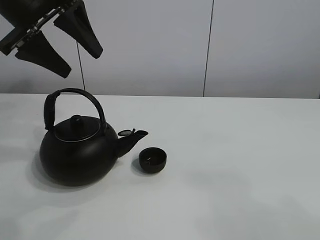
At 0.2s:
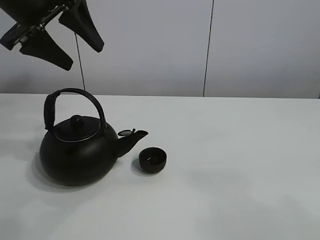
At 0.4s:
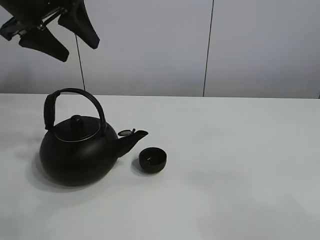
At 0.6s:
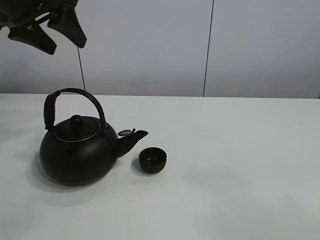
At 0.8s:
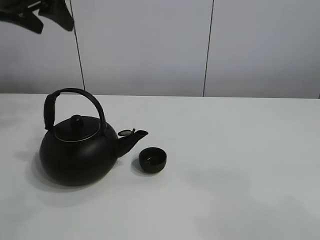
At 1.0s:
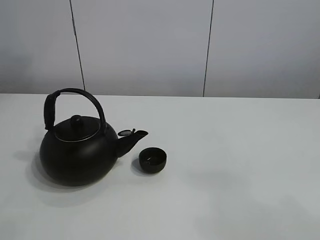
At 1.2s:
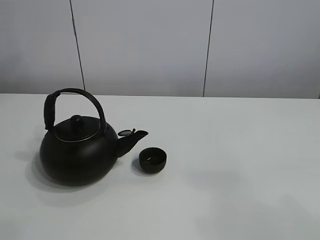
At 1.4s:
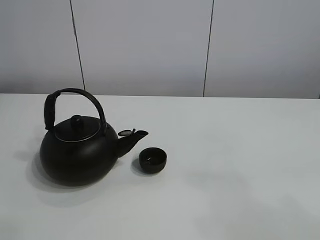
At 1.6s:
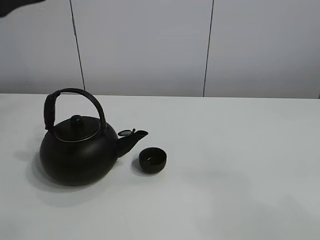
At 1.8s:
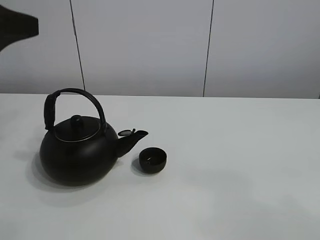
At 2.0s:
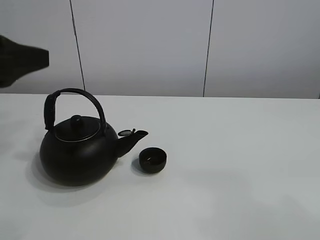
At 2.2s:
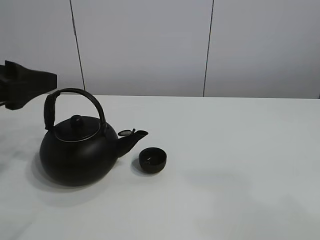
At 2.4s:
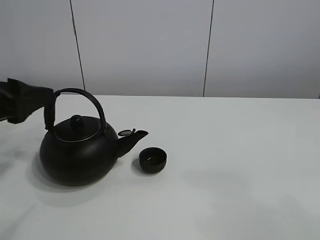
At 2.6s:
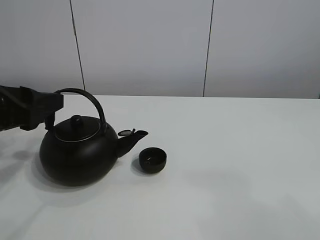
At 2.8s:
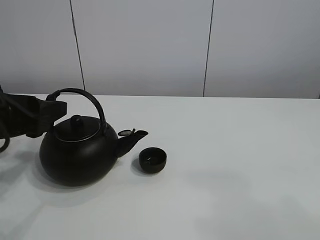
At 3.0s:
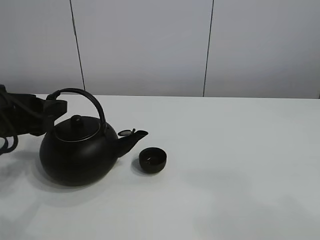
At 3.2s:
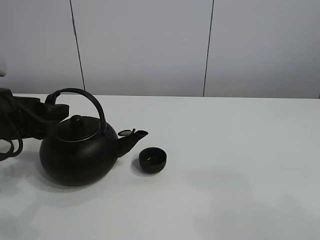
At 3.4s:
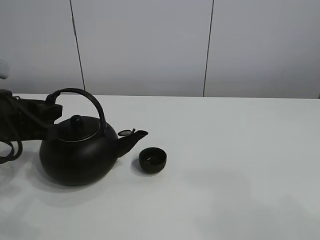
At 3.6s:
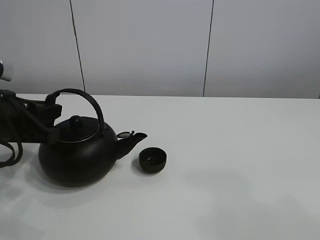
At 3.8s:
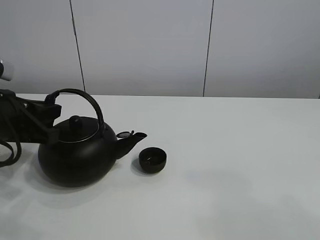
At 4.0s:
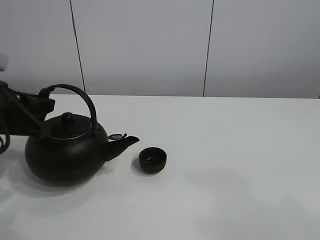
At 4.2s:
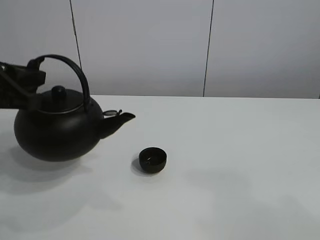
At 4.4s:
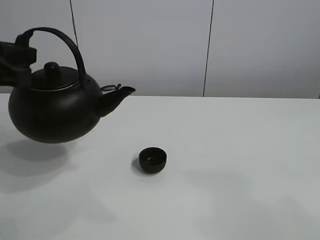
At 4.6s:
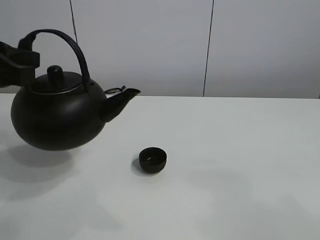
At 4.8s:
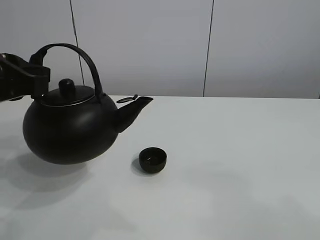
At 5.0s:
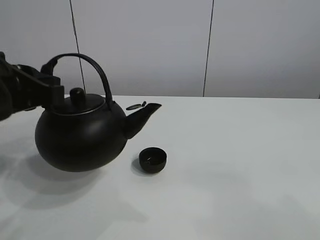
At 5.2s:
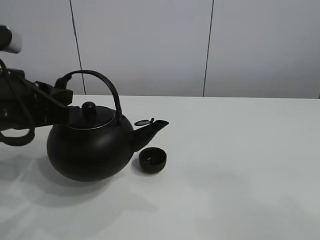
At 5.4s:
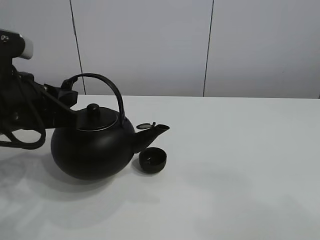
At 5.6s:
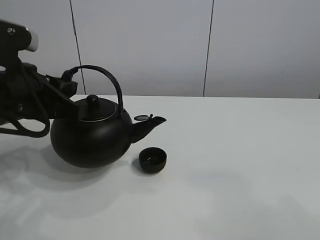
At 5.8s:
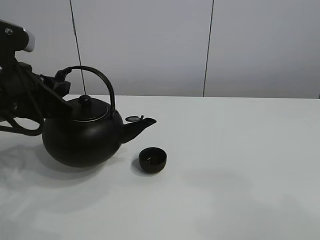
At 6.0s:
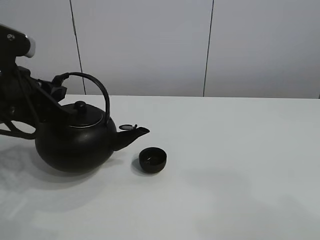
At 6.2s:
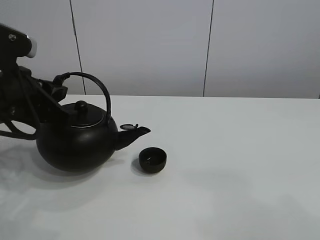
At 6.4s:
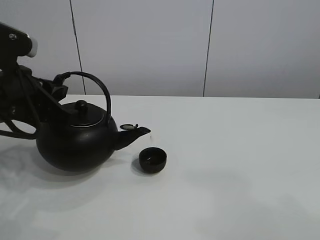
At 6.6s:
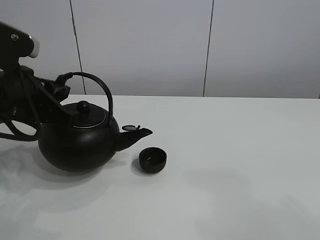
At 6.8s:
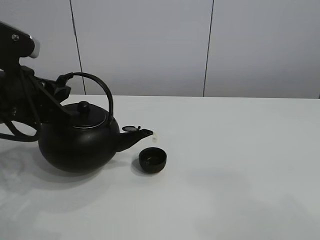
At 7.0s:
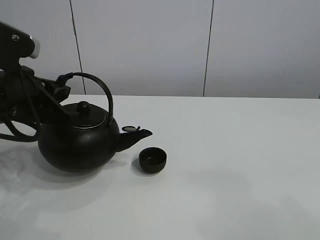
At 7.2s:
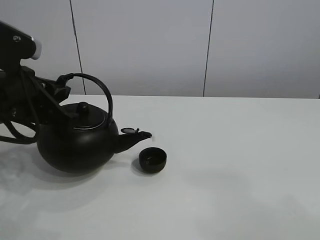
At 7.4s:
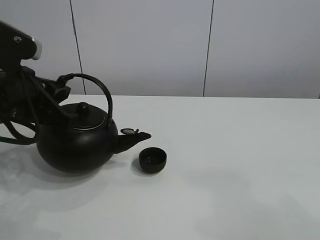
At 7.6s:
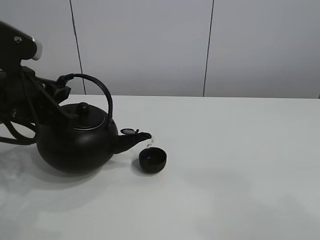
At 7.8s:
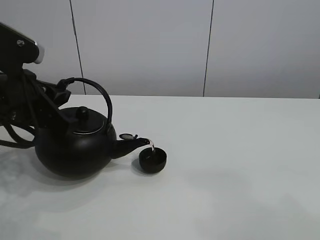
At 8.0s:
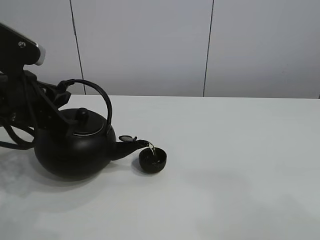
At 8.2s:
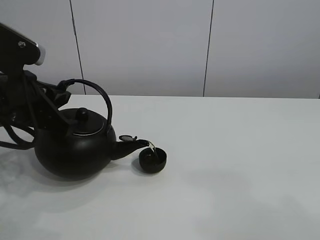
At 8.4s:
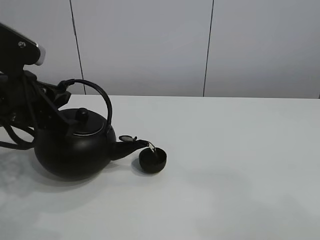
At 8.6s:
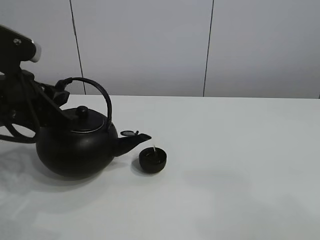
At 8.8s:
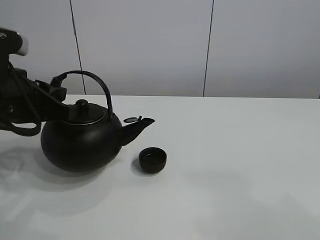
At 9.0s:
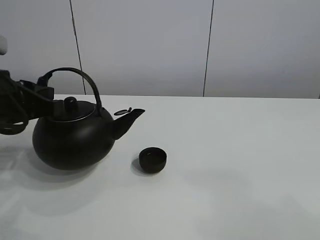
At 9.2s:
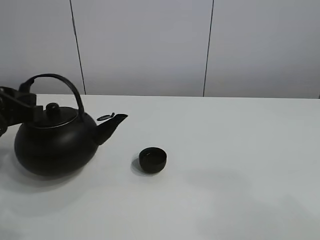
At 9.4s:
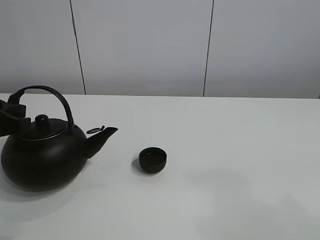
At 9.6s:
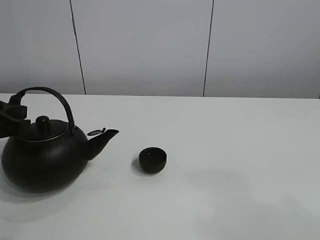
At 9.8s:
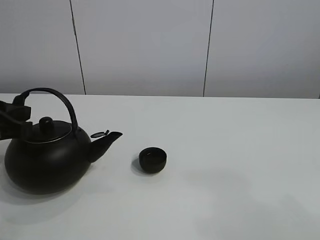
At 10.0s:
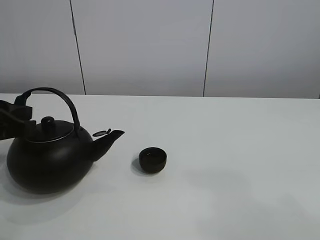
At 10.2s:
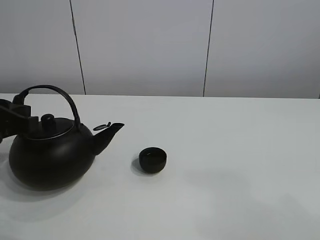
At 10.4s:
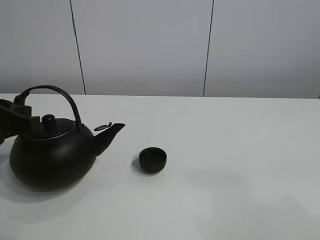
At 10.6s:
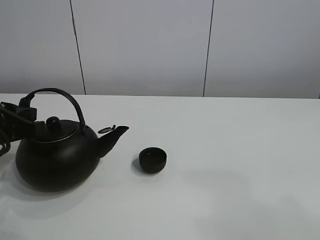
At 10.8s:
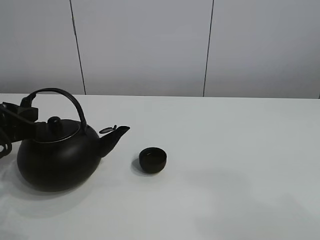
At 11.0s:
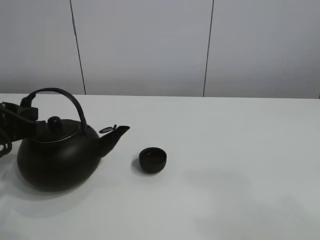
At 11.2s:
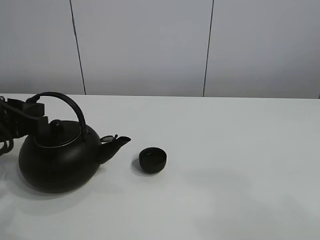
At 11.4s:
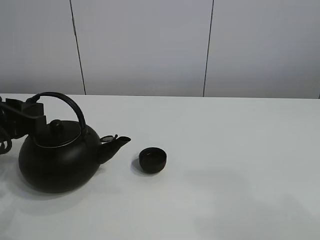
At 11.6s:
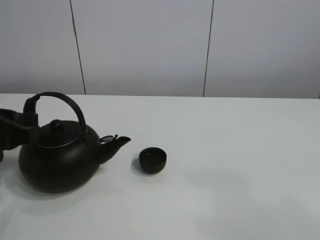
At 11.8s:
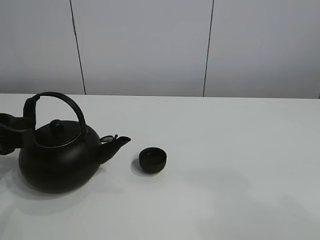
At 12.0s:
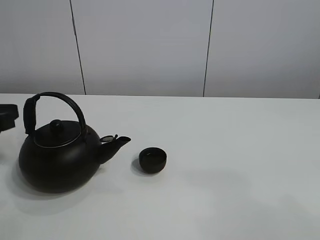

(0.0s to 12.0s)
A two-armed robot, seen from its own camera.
Task of the whole recording: pour tea into the teacup.
Step, 0.0s - 3.6s: Pick up the teapot with the left gripper.
Step, 3.8s - 8.6s: Pour tea into the teacup with the left gripper.
0.0s - 1.6s: The left gripper heads backward, covering some 10 cm.
1.6s - 3.0s: The left gripper goes approximately 15 cm downward.
3.0s - 4.4s: The left gripper heads upward, covering about 10 cm, and closes its fingers.
4.4s - 6.0s: The left gripper travels downward by about 5 cm.
6.0s - 9.0s: The grippers move only a little.
9.0s - 10.4s: The grippers stay close to where they were, moving slightly.
10.4s - 12.0s: The left gripper opens its fingers.

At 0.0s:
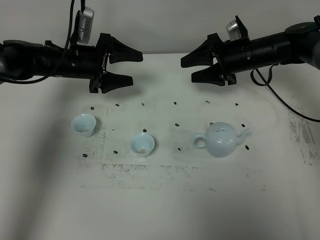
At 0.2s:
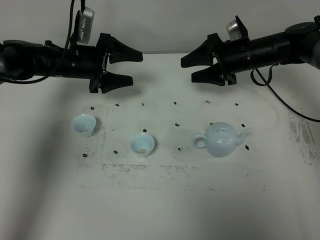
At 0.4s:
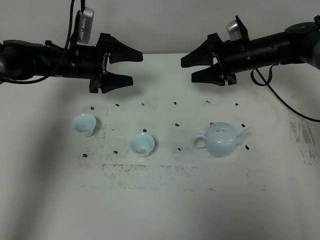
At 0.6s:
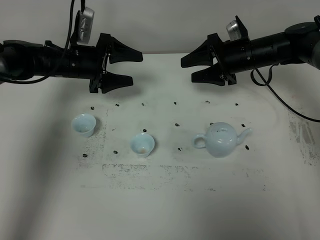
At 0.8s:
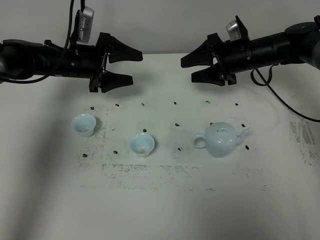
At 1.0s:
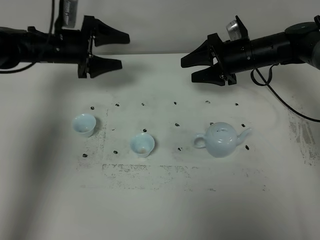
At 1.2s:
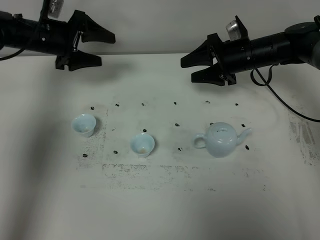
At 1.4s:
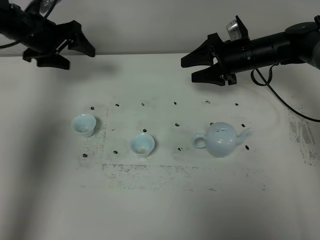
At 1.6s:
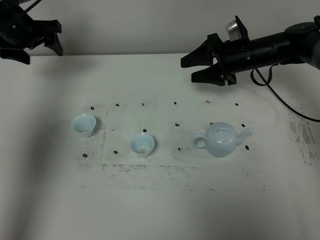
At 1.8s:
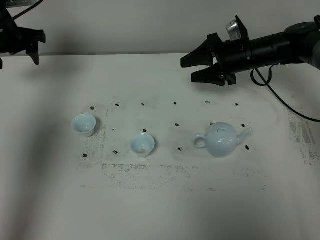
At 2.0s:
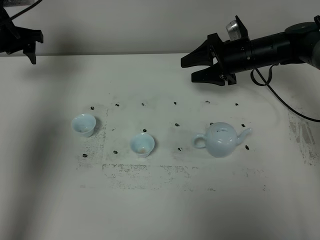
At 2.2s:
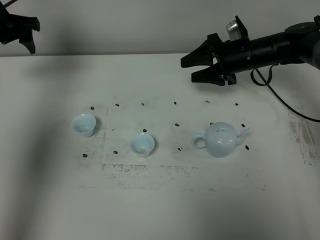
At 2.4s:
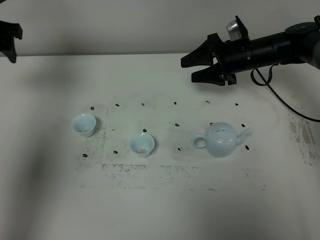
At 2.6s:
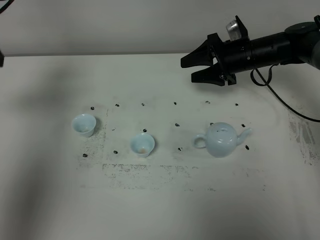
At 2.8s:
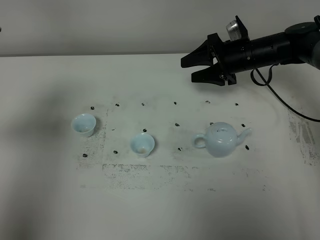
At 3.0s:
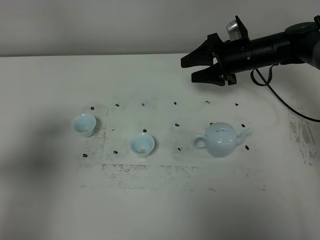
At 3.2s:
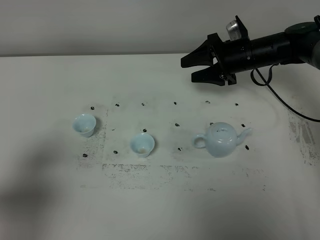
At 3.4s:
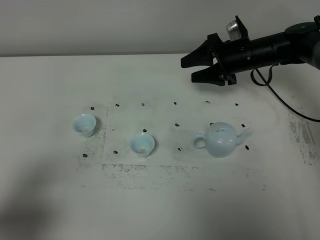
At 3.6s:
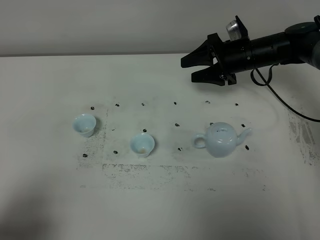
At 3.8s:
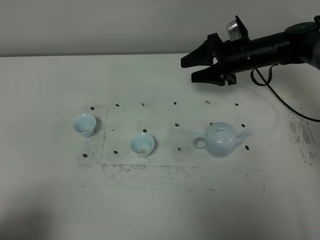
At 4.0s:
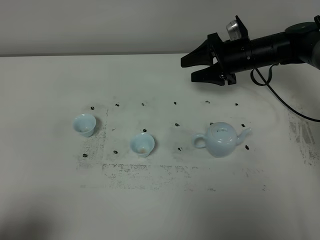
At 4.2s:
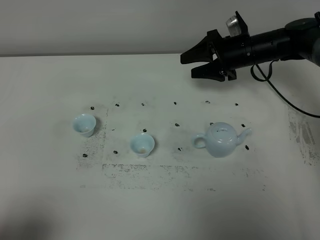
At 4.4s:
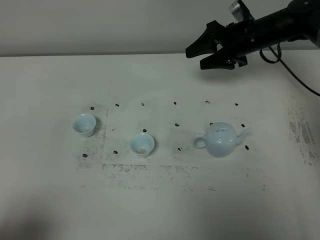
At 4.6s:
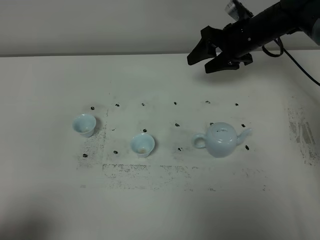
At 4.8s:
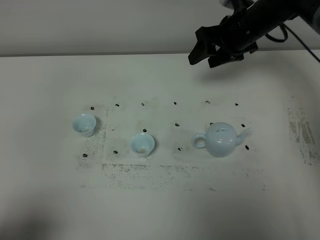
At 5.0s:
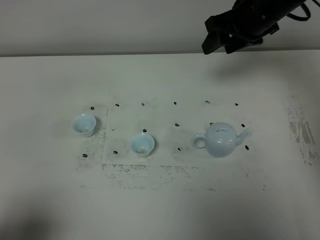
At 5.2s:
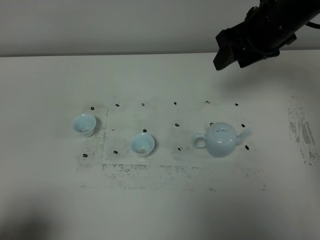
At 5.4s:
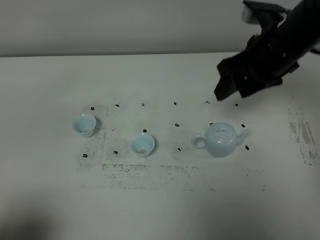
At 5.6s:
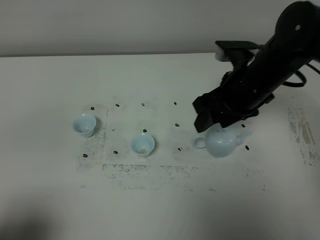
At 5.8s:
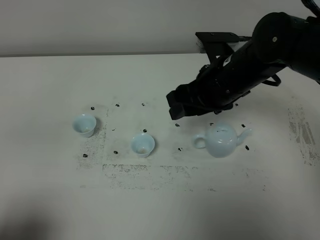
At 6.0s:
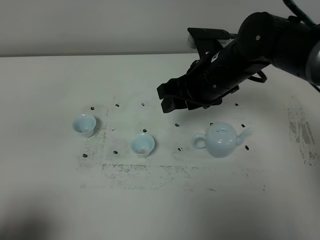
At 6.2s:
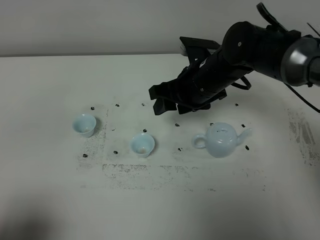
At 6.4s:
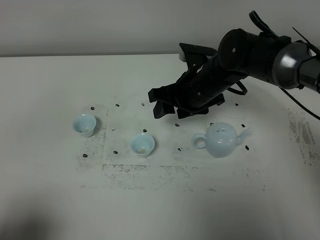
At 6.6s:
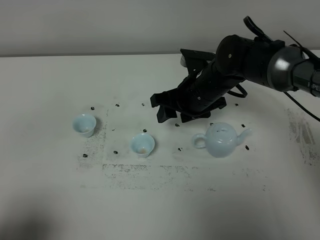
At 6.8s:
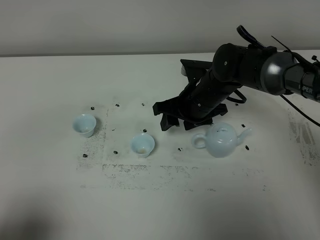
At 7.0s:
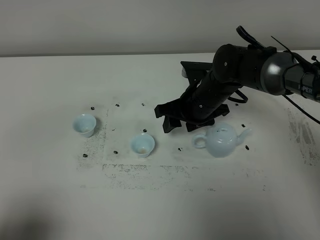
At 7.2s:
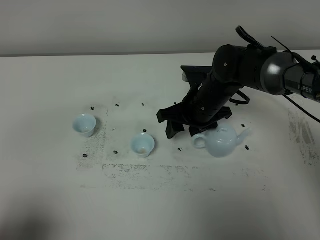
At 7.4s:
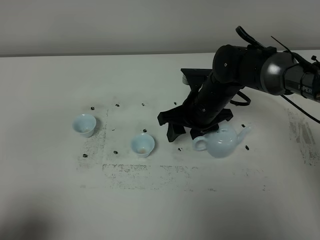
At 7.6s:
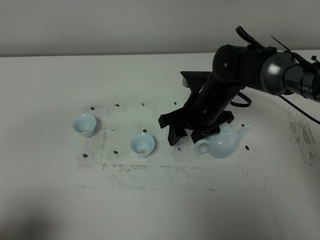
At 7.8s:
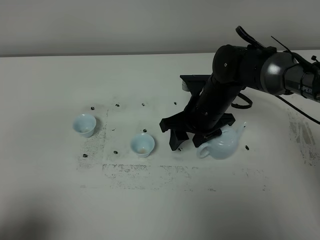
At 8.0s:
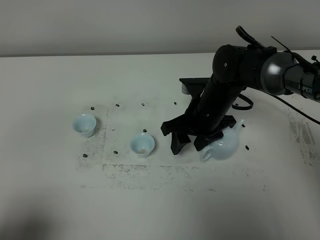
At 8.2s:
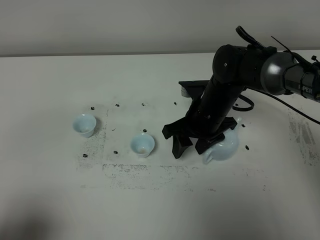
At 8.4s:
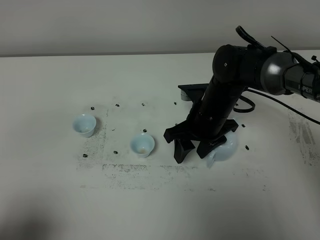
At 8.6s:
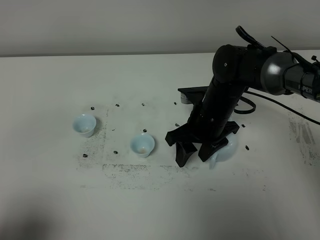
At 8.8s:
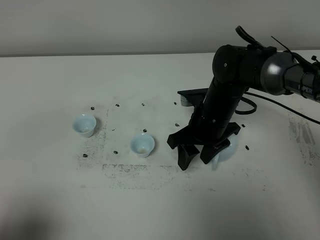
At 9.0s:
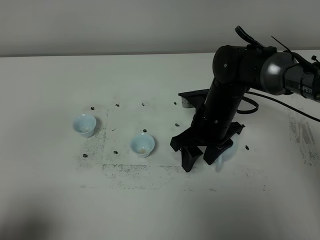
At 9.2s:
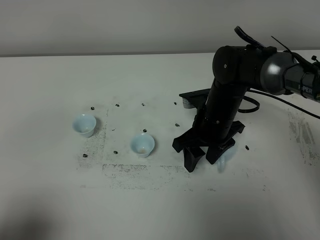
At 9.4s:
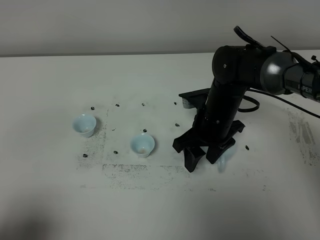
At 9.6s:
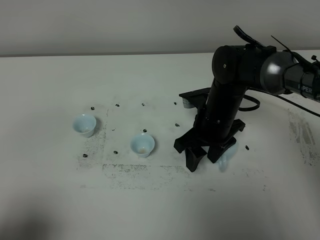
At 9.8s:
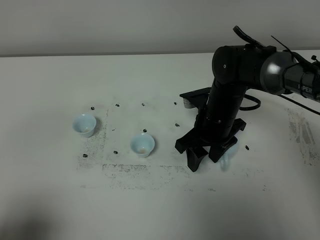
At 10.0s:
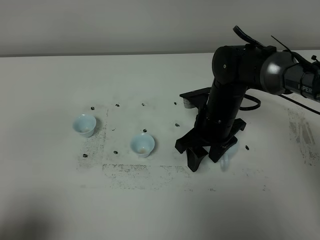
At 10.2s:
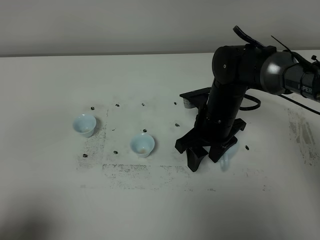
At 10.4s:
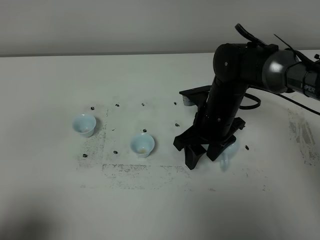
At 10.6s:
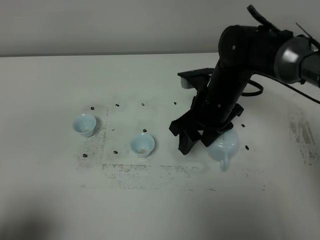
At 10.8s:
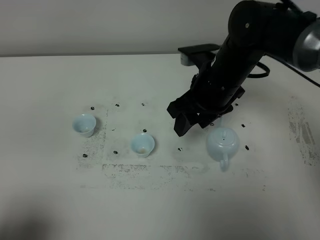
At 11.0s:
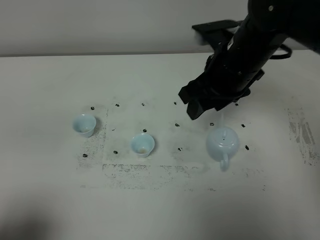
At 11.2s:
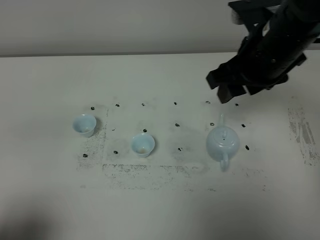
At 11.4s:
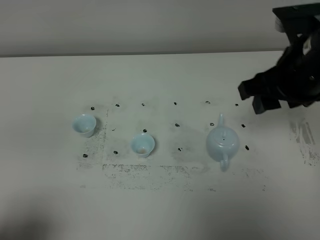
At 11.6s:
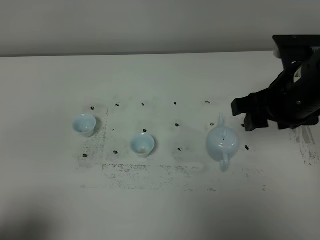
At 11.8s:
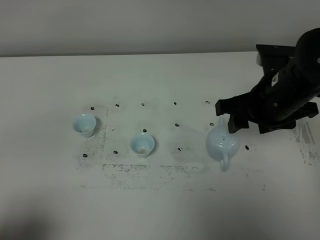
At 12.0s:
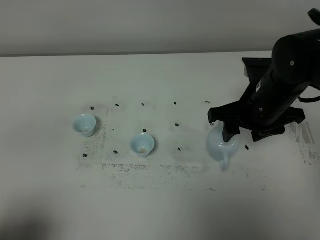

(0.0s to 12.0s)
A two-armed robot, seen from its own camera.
Task of the whole recording: grasp the blue porcelain teapot and pour the tea into the two blue porcelain teacups one by one, put the blue porcelain teapot back in its original place.
0.0s - 1.6s: The left gripper is displaced to the left and upward by approximately 15 cm.
1.6s - 3.0s: The left gripper shifts approximately 35 cm backward.
3.0s - 4.4s: The left gripper heads backward, covering some 20 cm.
4.4s - 6.0s: The right gripper goes about 15 cm backward and to the left.
6.0s - 7.6s: The right gripper heads downward, covering roughly 10 cm.
7.6s - 9.0s: There are only small adjustments of the grippers.
9.0s - 10.4s: Neither gripper changes place.
10.4s - 12.0s: The right gripper is displaced to the right by about 5 cm, and travels upward and back again, roughly 15 cm each way.
